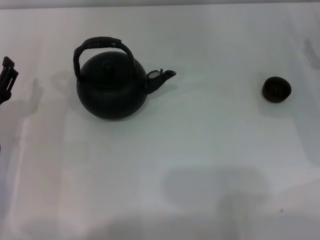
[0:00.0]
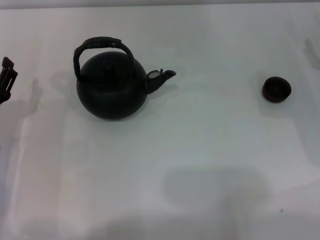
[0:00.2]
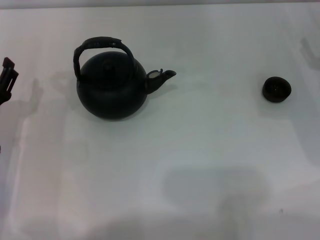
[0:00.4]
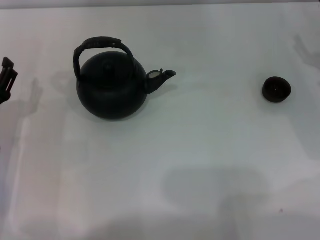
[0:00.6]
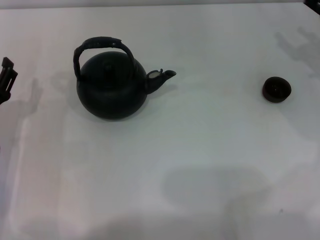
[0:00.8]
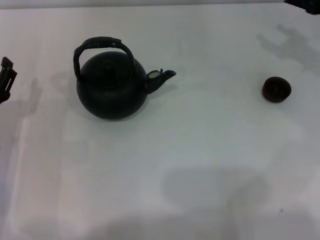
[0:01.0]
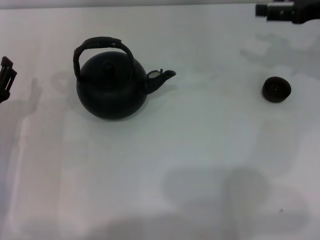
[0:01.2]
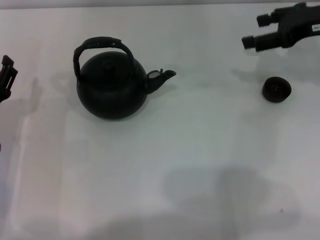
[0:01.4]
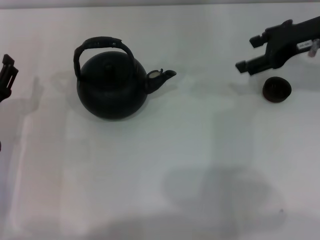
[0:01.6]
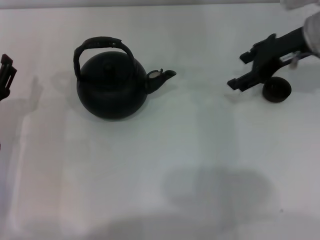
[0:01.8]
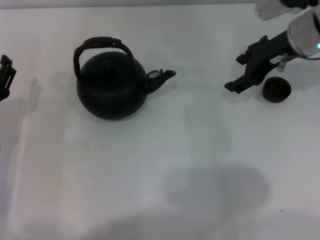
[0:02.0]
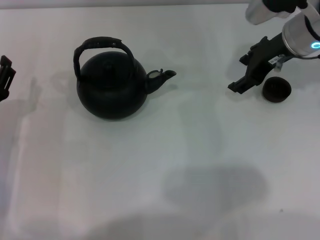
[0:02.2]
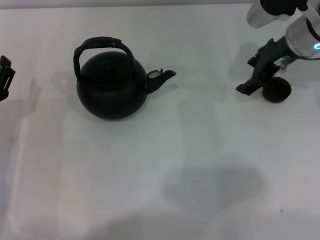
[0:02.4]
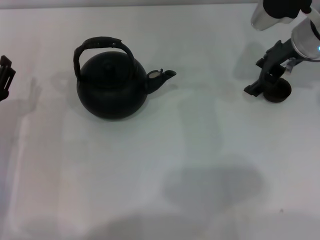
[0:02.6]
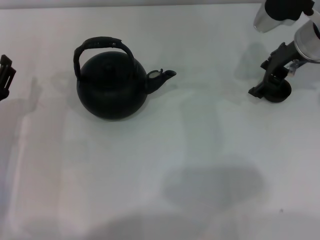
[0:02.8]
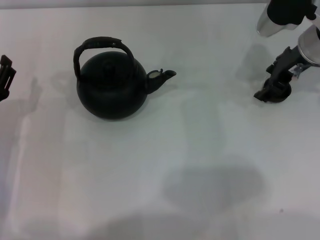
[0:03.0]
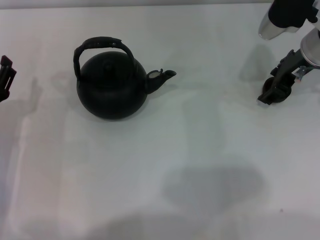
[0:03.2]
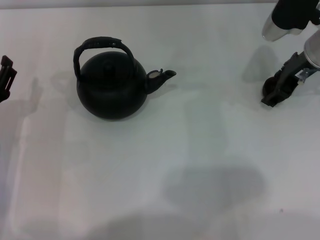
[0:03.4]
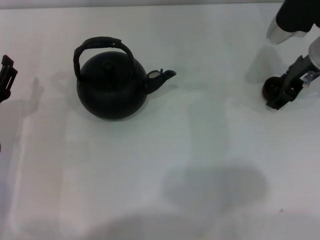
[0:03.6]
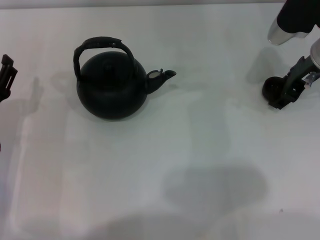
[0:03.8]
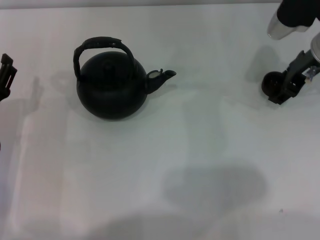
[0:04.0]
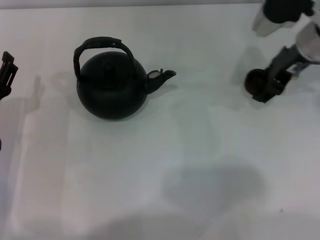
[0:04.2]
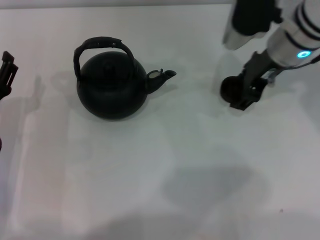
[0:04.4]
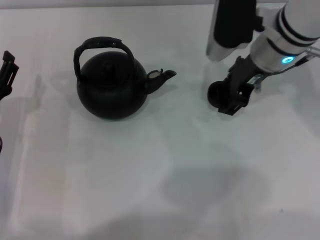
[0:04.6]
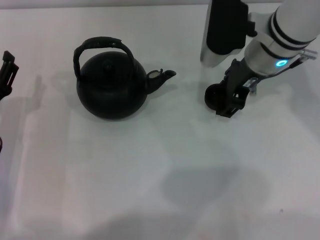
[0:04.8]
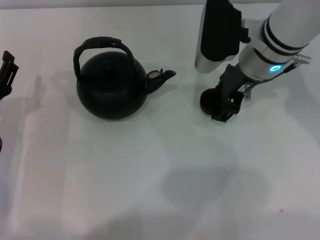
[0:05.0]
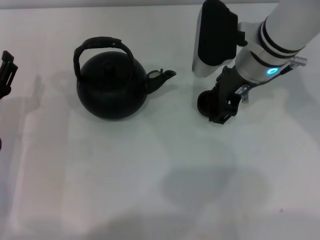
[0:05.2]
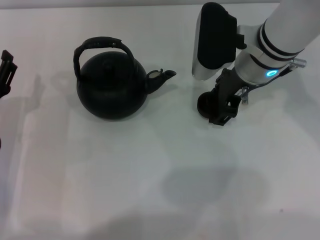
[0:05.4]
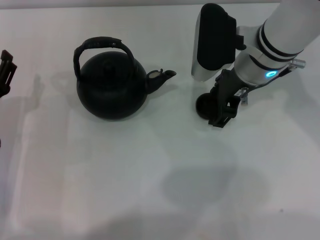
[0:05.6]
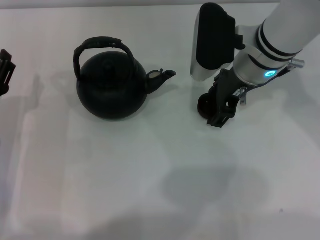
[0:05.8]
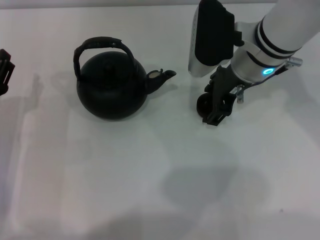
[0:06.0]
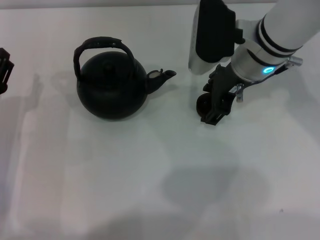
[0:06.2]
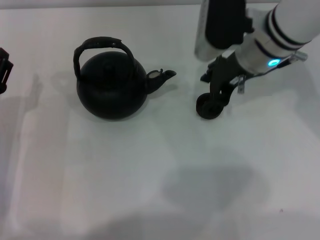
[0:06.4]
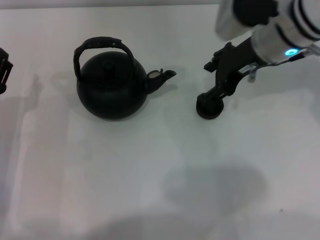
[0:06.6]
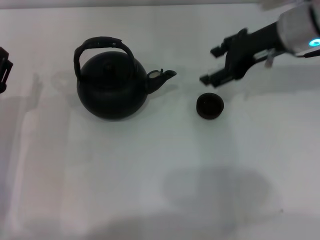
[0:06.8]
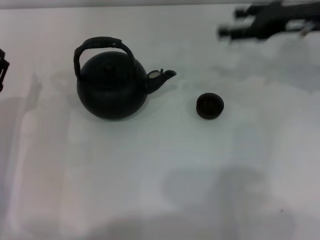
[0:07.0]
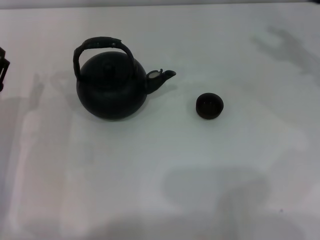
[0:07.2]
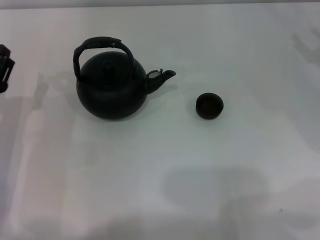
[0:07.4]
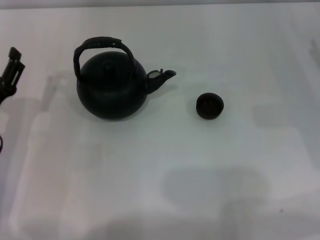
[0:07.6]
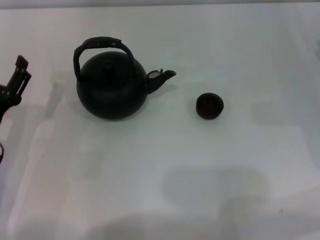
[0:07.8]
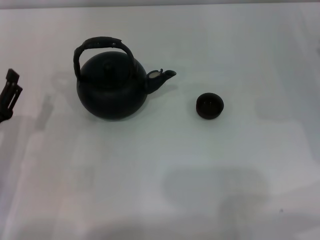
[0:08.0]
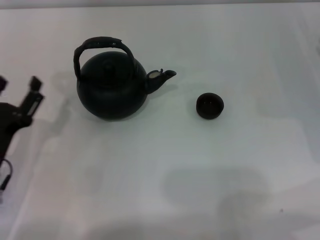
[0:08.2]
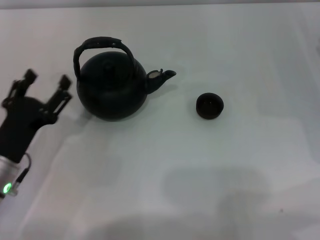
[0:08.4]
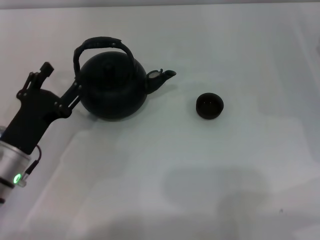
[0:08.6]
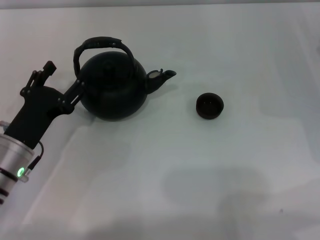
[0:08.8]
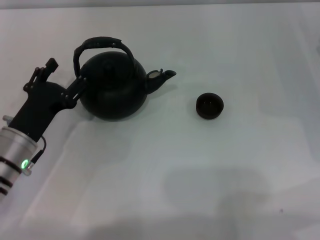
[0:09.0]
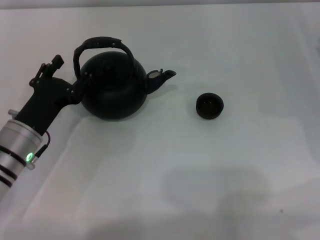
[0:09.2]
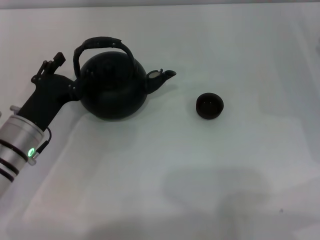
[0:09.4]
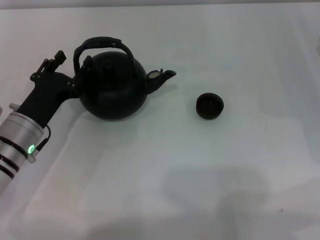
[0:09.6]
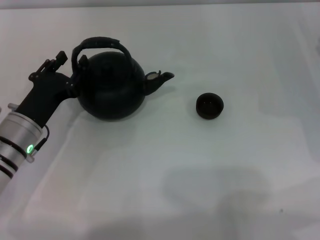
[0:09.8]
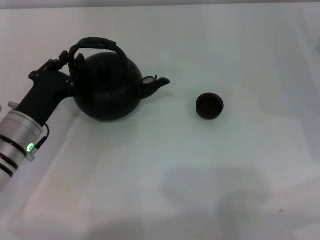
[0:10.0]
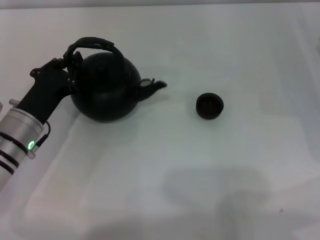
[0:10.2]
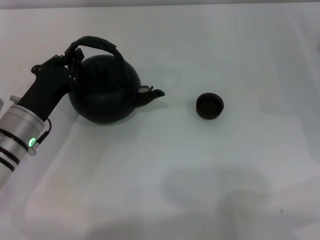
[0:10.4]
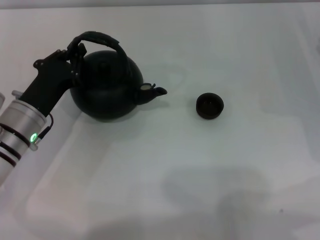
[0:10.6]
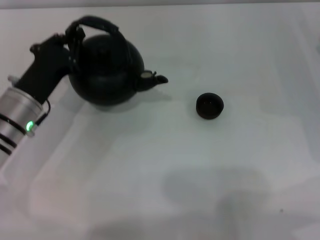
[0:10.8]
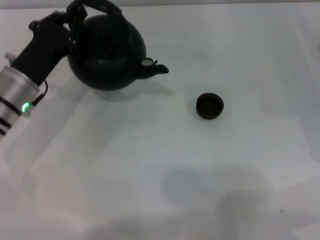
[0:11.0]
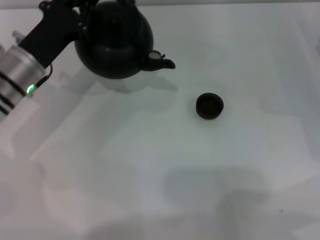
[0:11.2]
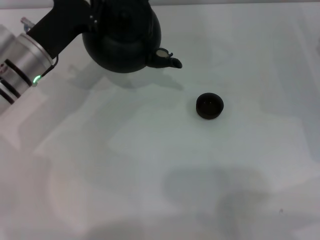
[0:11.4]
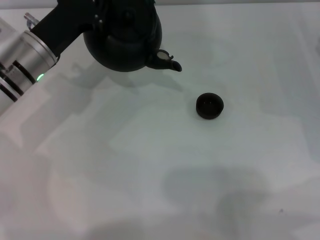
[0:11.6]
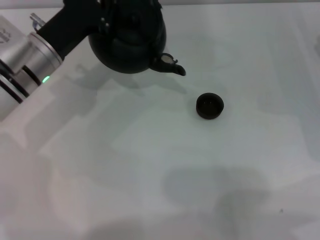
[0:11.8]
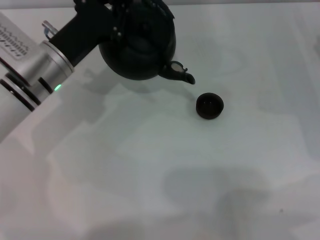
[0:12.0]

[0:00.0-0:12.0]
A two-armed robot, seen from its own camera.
Task of the whole recording: Grasp the handle of the teapot with one hand and pour tea into the teacup.
Step, 0:00.0 to 0:03.8: Pick up the teacup with the right gripper.
Step, 0:04.2 to 0:06.6: Place the teacup in the center of view with the right gripper.
Step, 0:06.8 to 0:10.8: Pick up the teapot with the left gripper.
0:00.0 to 0:01.6: The right gripper is displaced upward, to the left and forward by roughly 15 cm.
0:01.6 to 0:03.0: The right gripper shifts by roughly 5 cm.
0:03.0 to 0:04.4: The right gripper travels to the left by about 5 cm, and closes.
0:04.4 to 0:06.0: The right gripper ends up some 5 cm from where it was, and opens its fingers.
0:06.0 to 0:07.6: The right gripper moves to the right, some 25 cm.
0:07.6 to 0:09.0: The grippers stay close to where they were, moving slightly.
0:09.0 to 0:10.4: The left gripper closes up.
0:10.4 to 0:12.0: The left gripper travels forward and upward by roughly 10 cm.

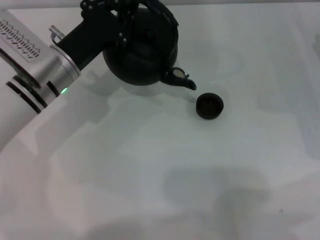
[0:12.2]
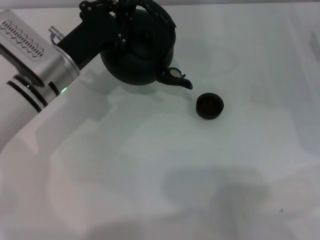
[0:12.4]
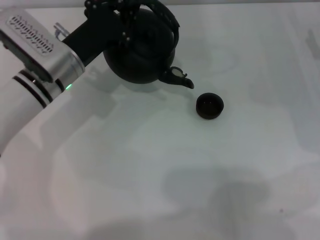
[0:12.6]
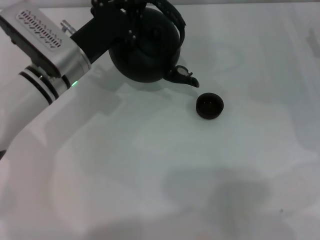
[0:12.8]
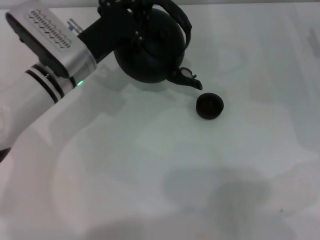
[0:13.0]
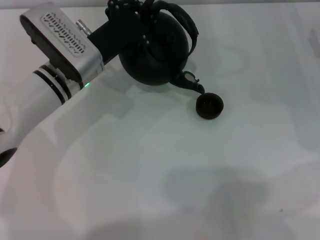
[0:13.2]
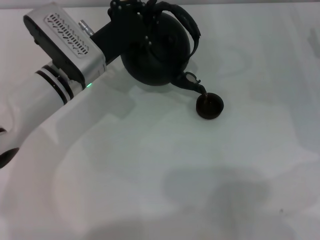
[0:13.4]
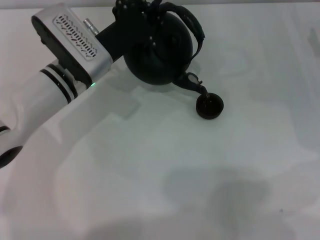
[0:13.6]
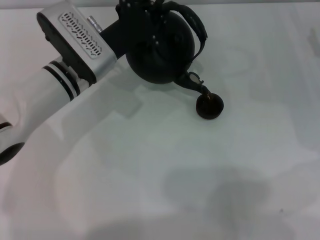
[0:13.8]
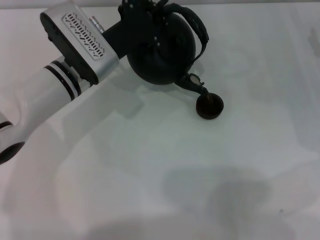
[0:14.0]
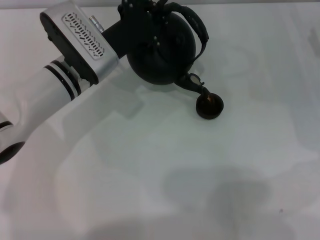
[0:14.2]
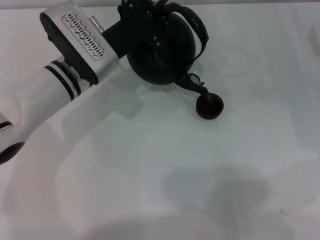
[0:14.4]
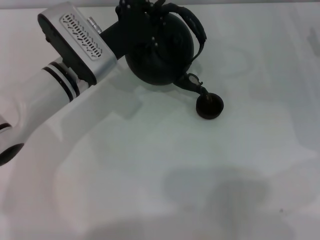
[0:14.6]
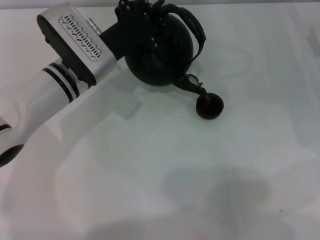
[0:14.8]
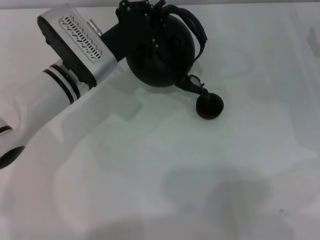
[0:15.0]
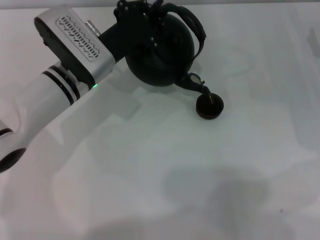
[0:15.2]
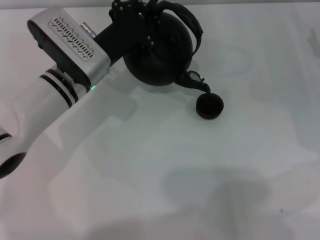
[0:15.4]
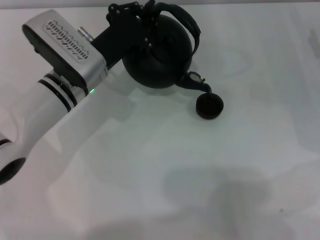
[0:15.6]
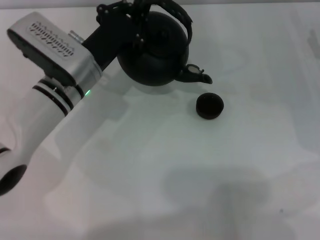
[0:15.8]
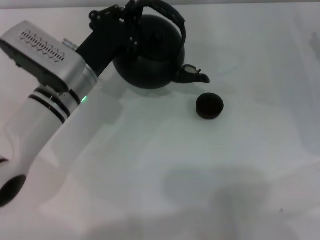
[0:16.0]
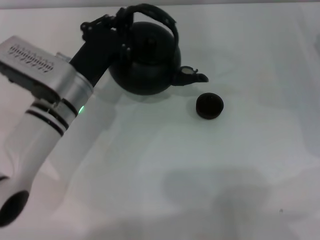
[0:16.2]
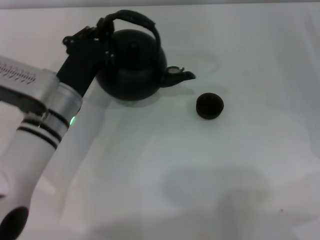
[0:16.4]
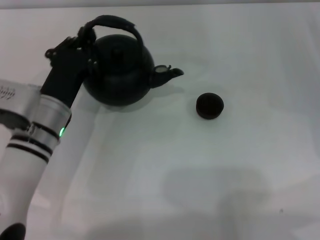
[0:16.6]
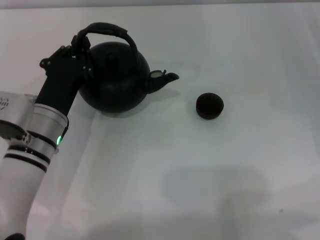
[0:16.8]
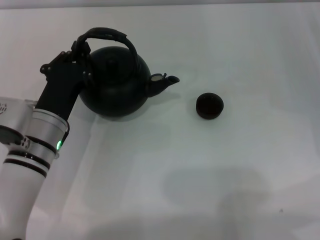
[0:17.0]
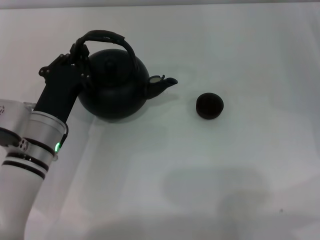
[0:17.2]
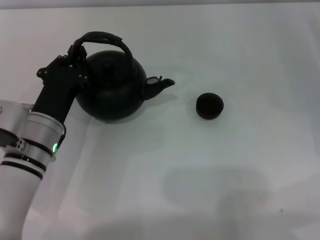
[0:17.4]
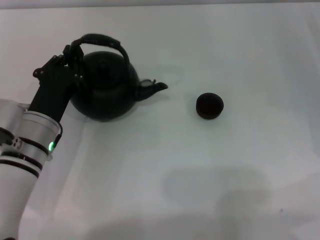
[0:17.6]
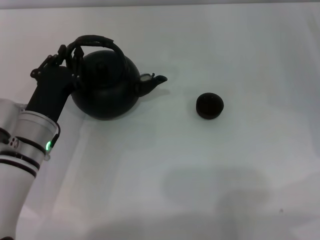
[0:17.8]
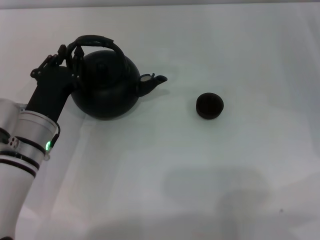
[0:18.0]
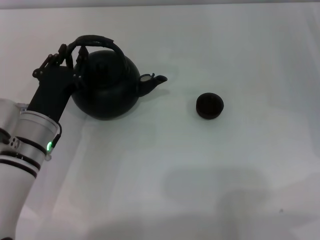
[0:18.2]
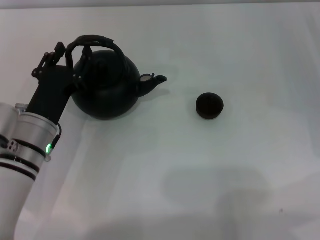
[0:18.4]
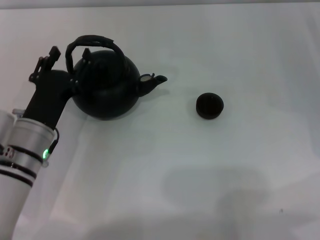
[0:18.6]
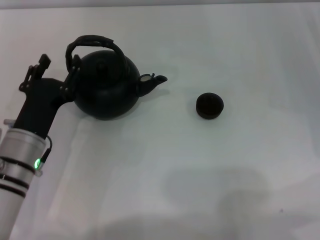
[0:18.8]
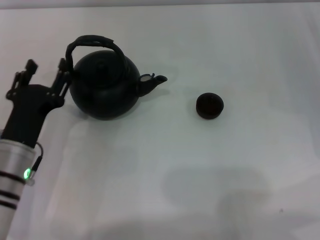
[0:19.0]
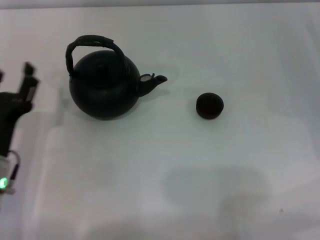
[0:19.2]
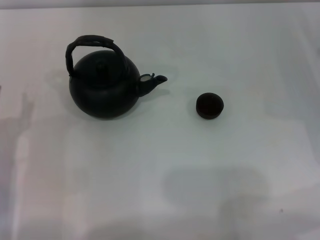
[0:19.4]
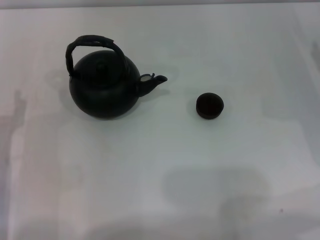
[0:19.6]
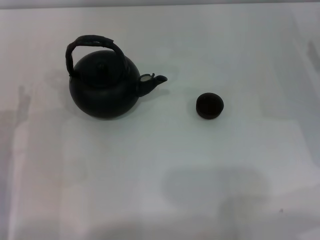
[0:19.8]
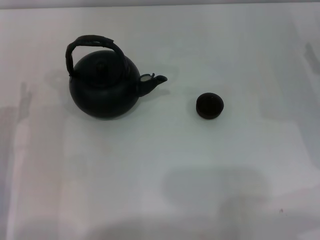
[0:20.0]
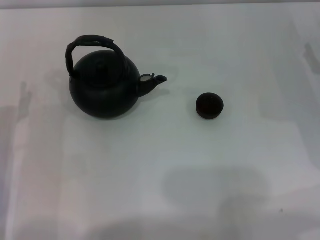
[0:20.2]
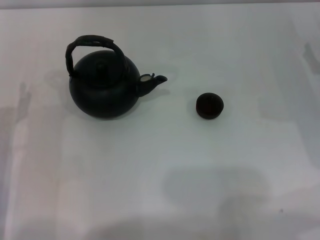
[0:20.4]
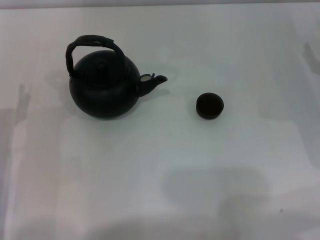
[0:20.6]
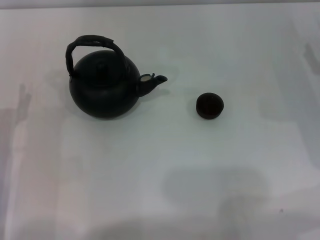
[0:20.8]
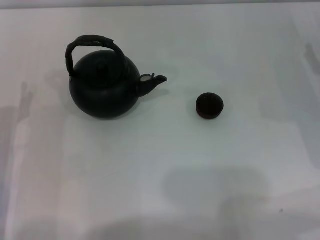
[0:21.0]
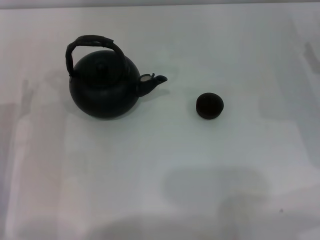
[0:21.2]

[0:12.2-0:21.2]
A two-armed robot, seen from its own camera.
Task of the whole recording: Grasp the handle of the teapot with one hand and pour tea into the teacup.
Step, 0:12.2 to 0:15.6: Pour tea into the teacup with the left gripper.
Step, 0:16.0 to 0:19.0: Put down the teapot with the left gripper.
0:12.2 to 0:13.8: The grippers make only small movements.
0:13.8 to 0:15.2: The two grippers keep their place.
0:15.2 to 0:16.6: The left gripper moves backward, approximately 10 cm.
0:16.6 to 0:18.2: There are only small adjustments of the grippers.
0:18.2 to 0:19.8: The left gripper moves to the left and backward, roughly 10 cm, and opens its fingers.
0:19.8 to 0:21.2: Both grippers stay put.

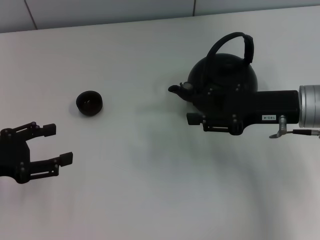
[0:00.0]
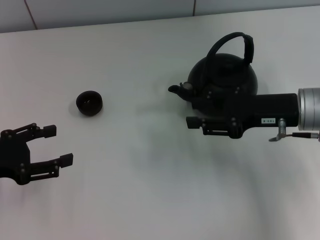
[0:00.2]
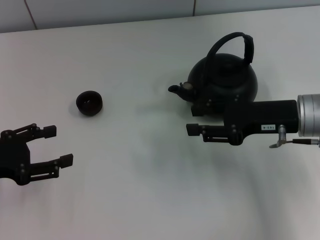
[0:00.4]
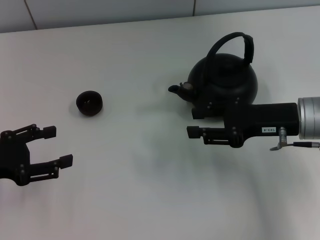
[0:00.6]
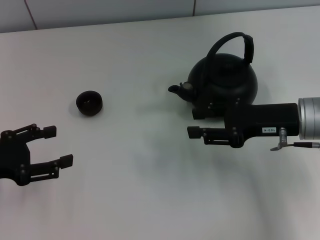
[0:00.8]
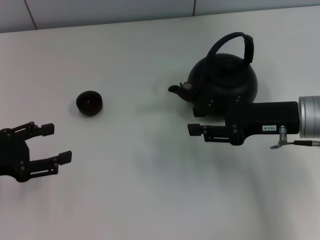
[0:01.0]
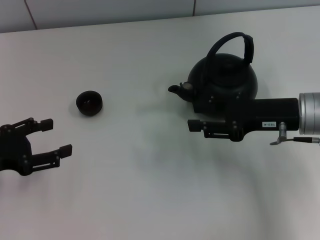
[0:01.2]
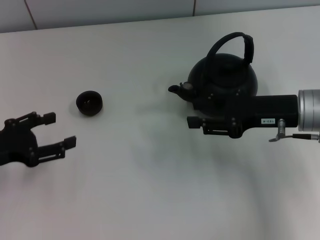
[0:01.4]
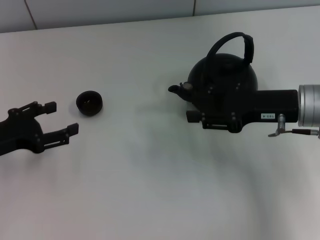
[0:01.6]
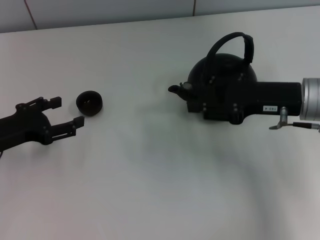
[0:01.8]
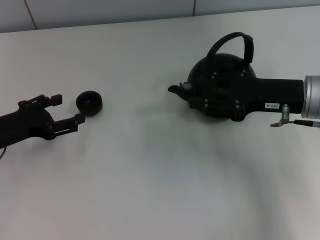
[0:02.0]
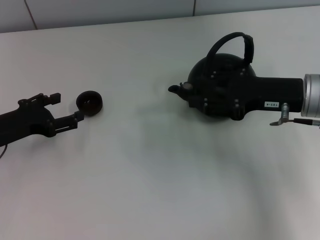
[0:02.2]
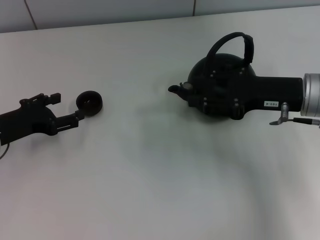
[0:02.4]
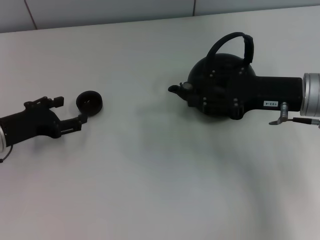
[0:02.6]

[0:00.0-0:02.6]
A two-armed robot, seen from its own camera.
Task of the whole recording: Grasp the handle of the teapot with one hand and pour tea into the teacup.
0:00.0 to 0:01.2: Both grippers stay about where they are.
0:01.2 to 0:02.6: The left gripper moves forward, about 5 cm.
